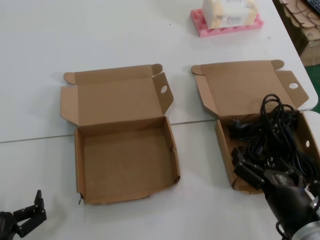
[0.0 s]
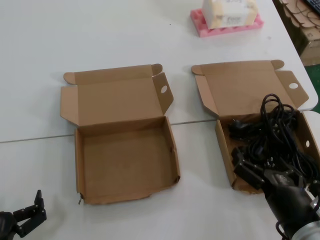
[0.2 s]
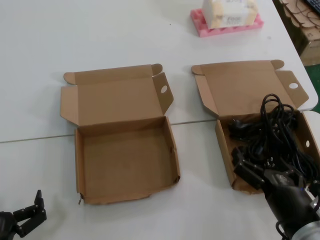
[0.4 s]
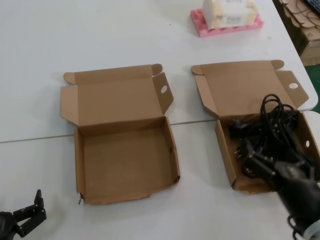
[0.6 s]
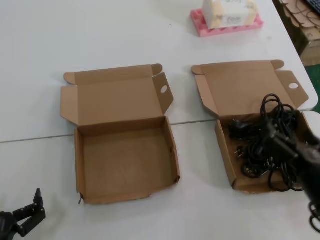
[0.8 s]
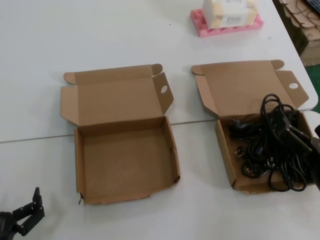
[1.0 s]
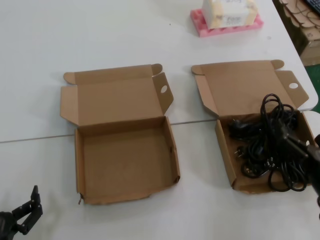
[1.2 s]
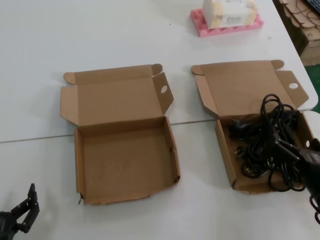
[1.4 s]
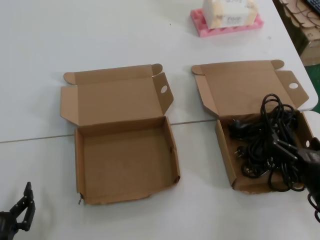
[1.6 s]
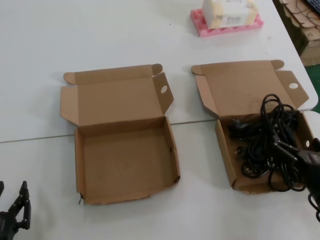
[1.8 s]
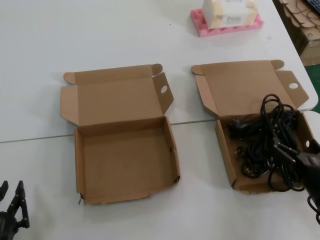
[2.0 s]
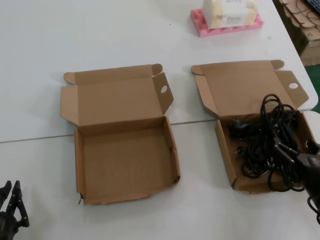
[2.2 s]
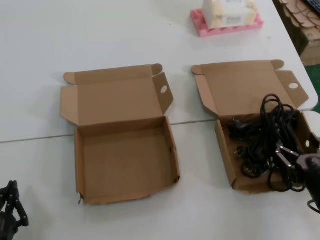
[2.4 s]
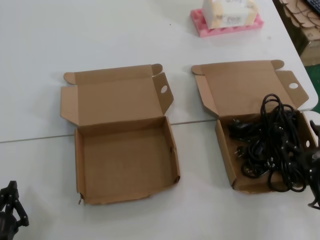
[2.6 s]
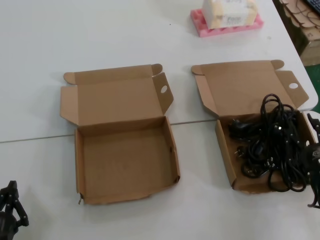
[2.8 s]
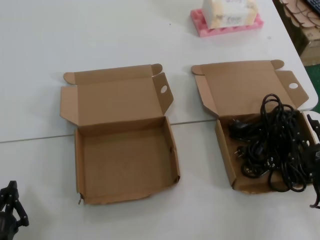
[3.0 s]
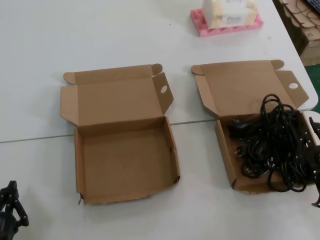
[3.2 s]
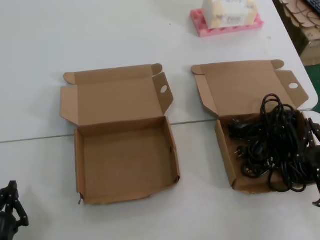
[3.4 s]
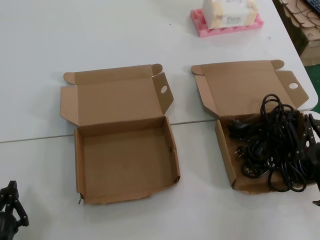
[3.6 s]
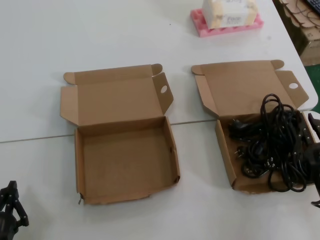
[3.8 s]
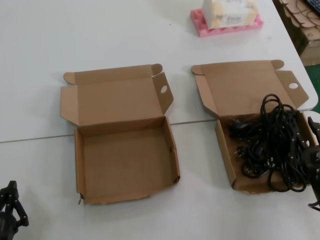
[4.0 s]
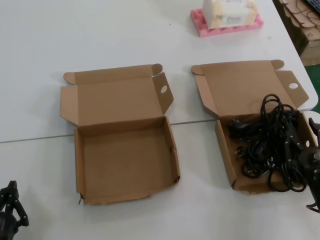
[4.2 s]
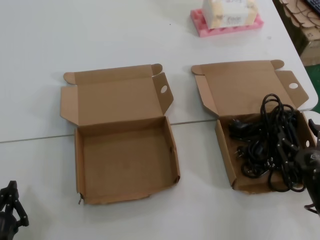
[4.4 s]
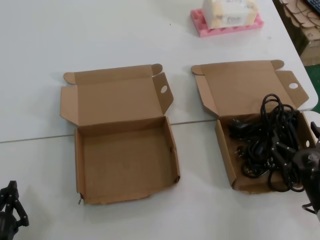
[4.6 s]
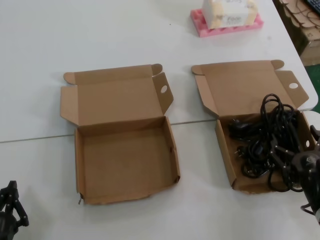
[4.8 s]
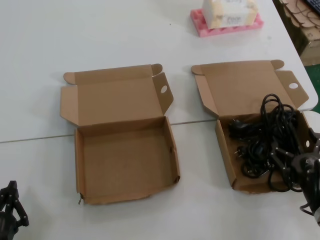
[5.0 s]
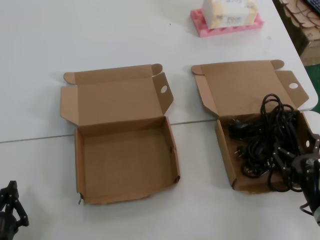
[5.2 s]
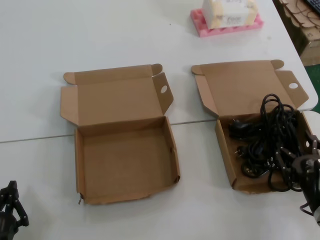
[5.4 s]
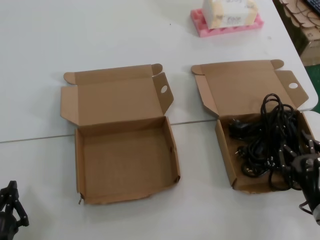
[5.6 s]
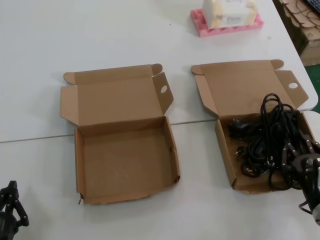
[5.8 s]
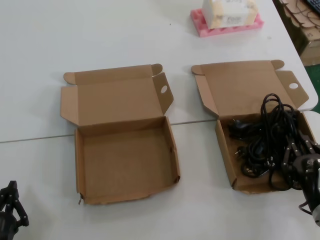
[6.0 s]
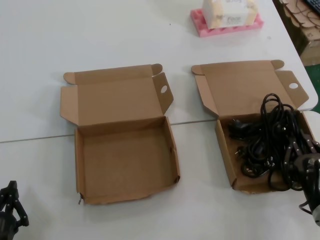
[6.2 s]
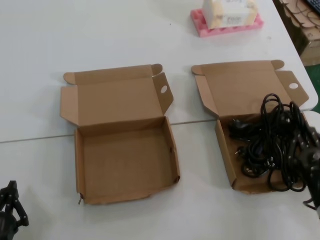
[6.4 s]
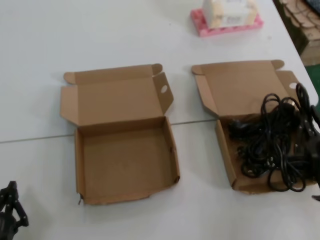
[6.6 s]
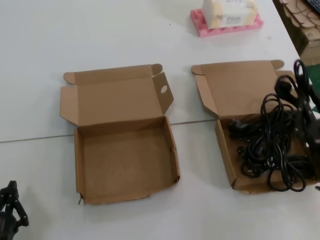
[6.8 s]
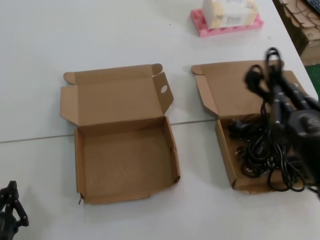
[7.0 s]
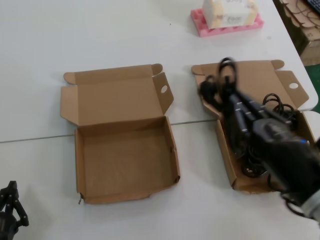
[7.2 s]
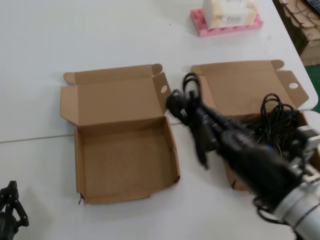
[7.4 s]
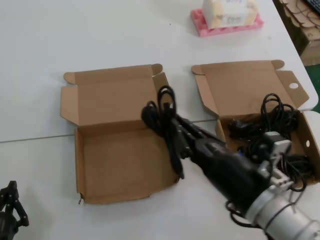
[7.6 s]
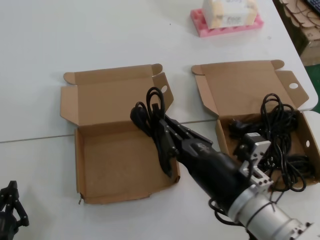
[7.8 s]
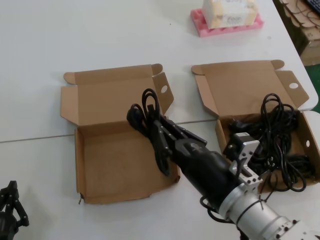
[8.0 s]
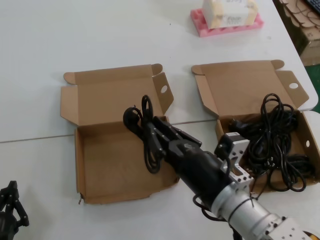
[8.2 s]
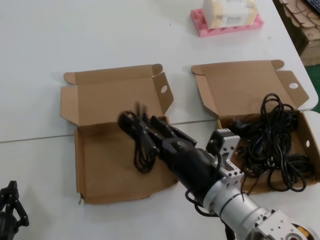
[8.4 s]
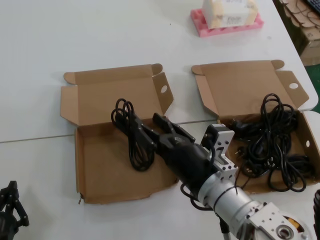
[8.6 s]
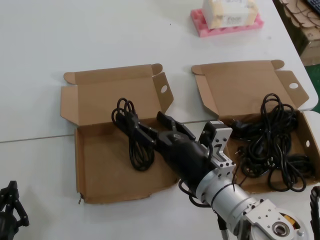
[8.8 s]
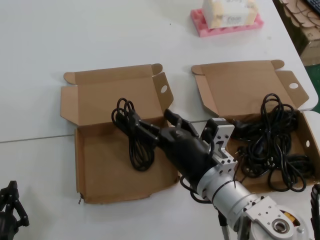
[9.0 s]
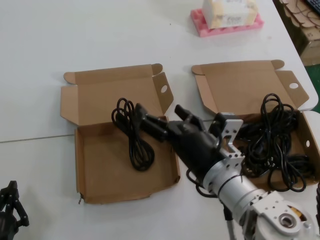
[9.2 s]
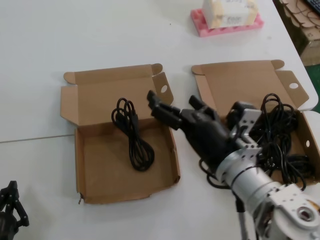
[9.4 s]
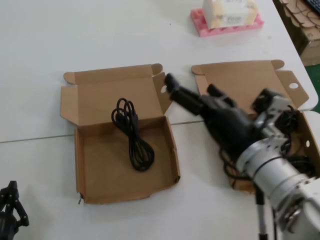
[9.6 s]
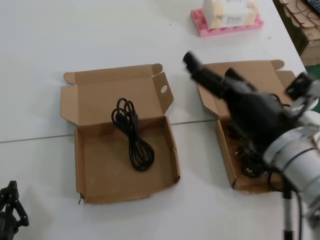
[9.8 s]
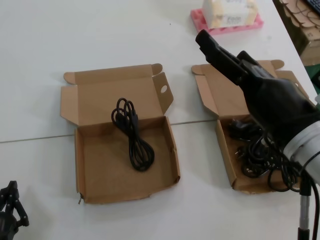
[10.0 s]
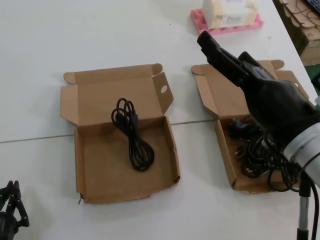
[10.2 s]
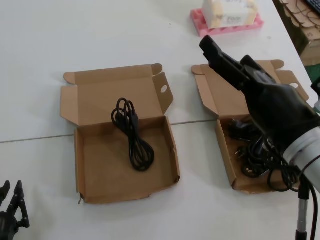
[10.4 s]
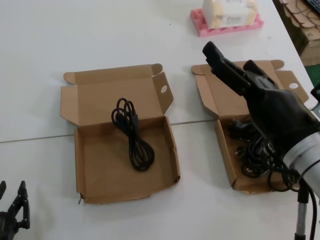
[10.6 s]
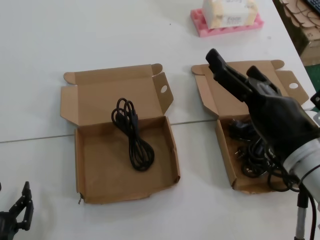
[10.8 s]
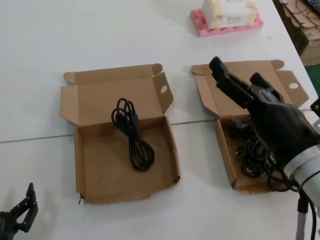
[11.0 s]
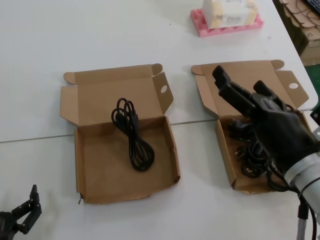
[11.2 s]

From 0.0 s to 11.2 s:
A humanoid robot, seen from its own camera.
Task of the whole recording: Pick up the power cord from the box containing it and place it in another box.
Step, from 0.0 s to 6.2 s: Grasp the data cable.
Step, from 6.4 s to 8.8 s: Place the data cable in the another box.
From 0.0 s to 1.6 s: The right hand moves to the right, about 5 cm.
From 3.2 s to 6.4 s: The hands make only small movements.
From 6.4 s to 8.0 s: The right hand is displaced to the left and upward by about 20 cm.
From 8.0 s to 9.6 s: The right hand moves upward, approximately 5 cm.
From 9.6 s to 11.2 s: The right hand travels to the right by some 5 cm.
